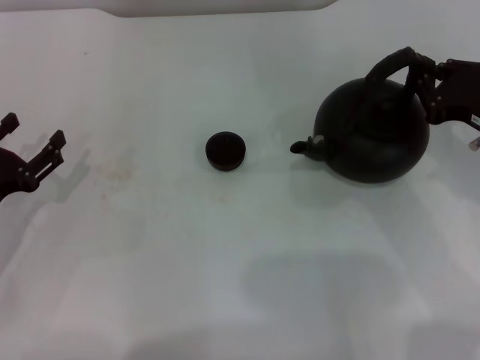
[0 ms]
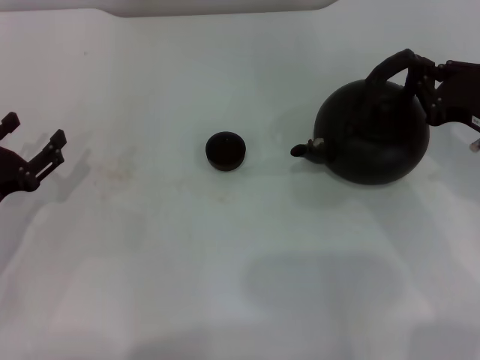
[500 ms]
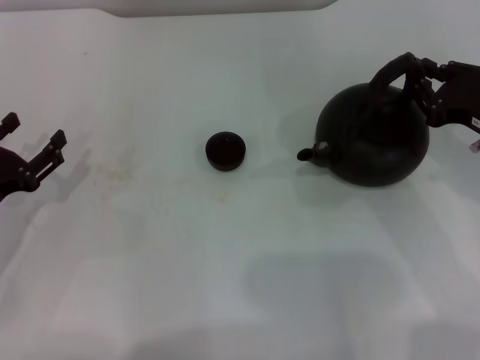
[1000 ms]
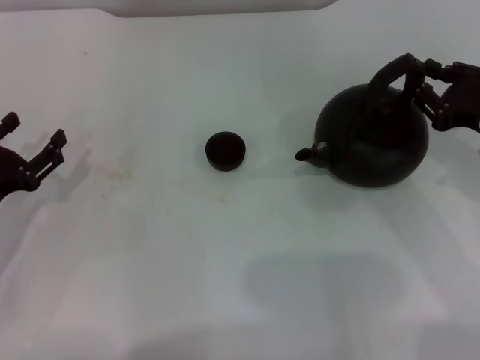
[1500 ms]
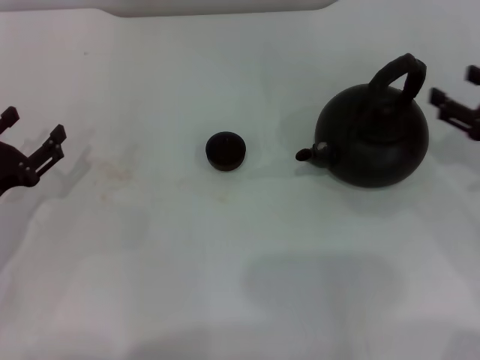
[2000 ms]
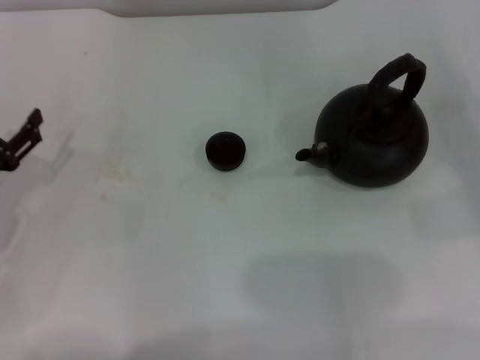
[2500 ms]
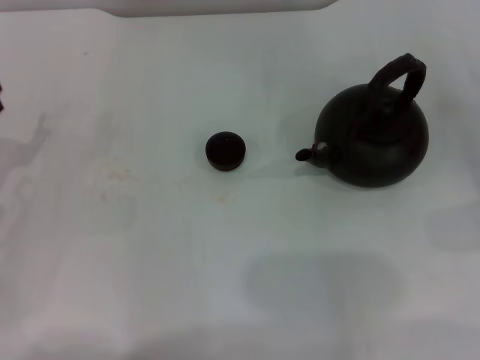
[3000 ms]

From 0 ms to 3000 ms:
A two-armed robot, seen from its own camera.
Task of the whole recording: Grasp the handle of the teapot with one hand and pour tea into the teacup.
From 0 ms to 1500 ms: Both grippers stay about where they are.
From 1500 ms to 3000 ms: The right gripper travels to the right by approximately 10 cm, and opens.

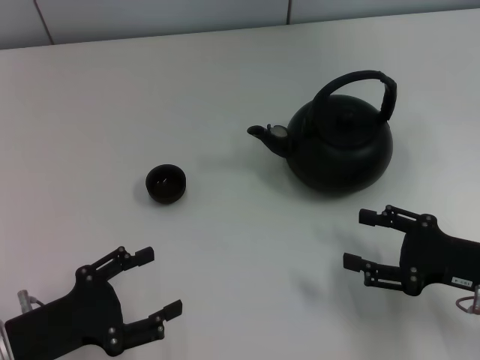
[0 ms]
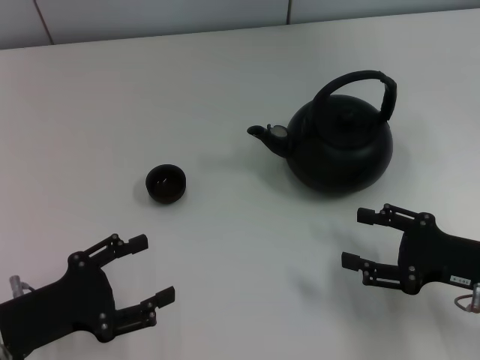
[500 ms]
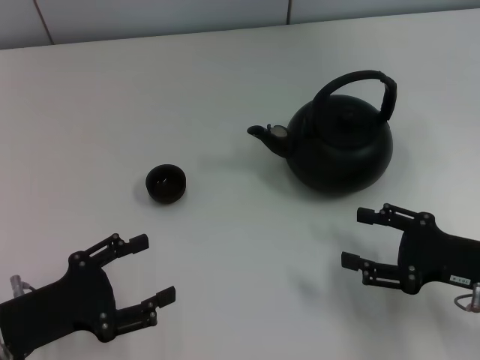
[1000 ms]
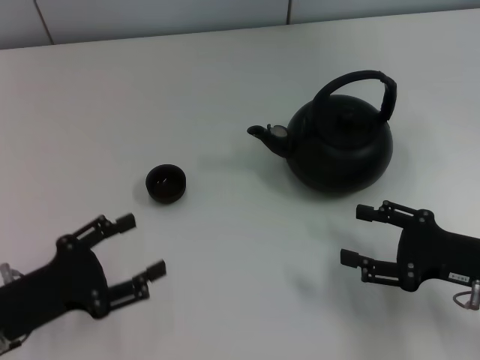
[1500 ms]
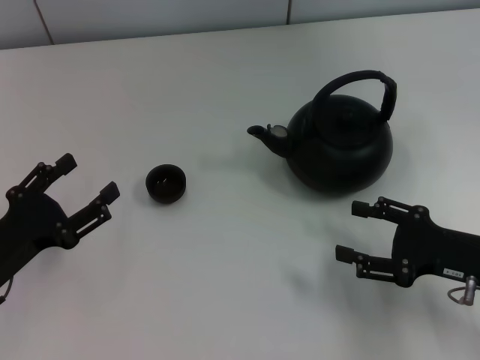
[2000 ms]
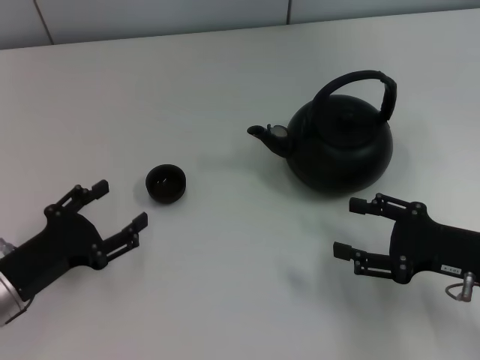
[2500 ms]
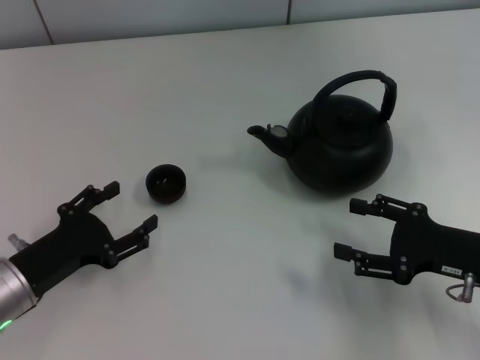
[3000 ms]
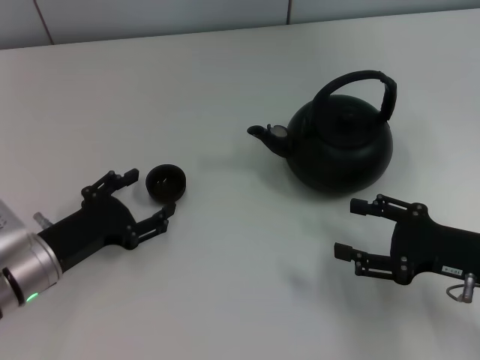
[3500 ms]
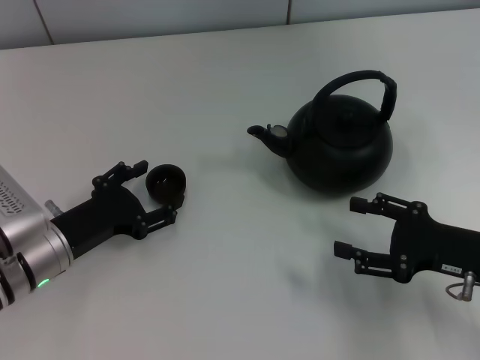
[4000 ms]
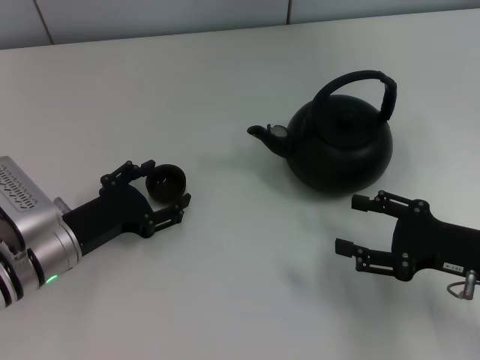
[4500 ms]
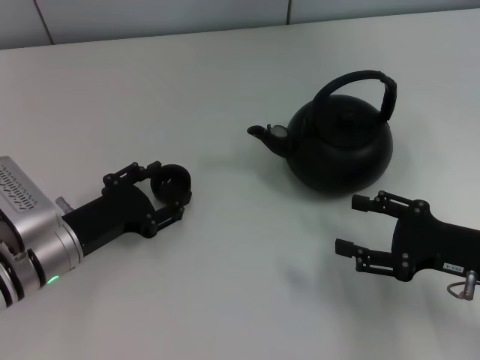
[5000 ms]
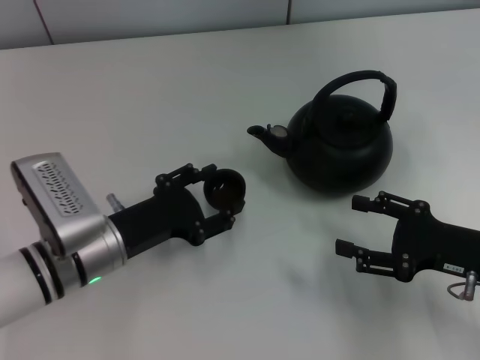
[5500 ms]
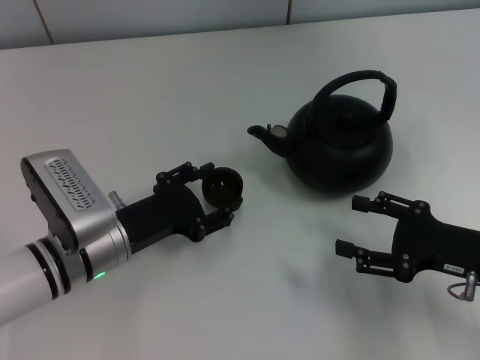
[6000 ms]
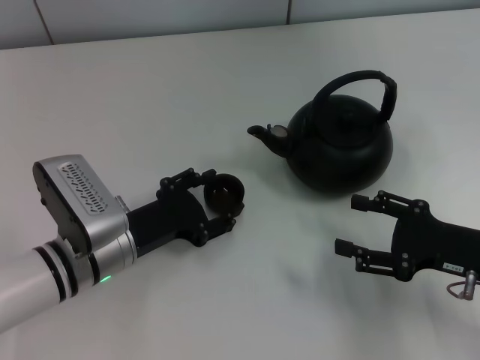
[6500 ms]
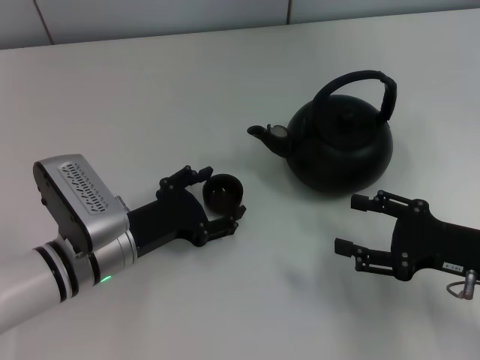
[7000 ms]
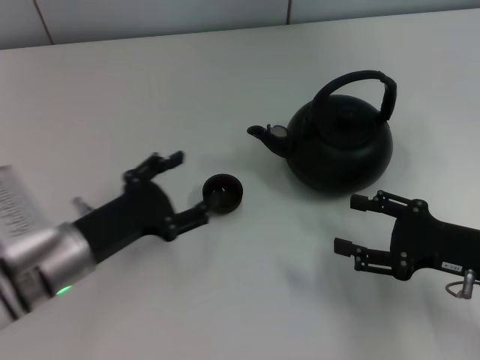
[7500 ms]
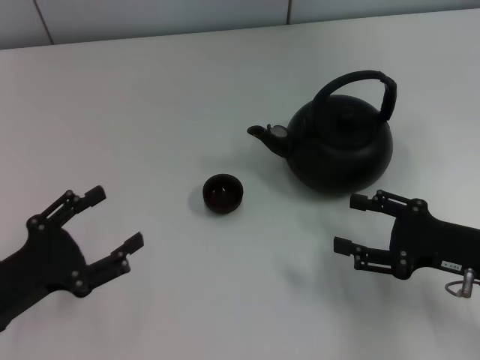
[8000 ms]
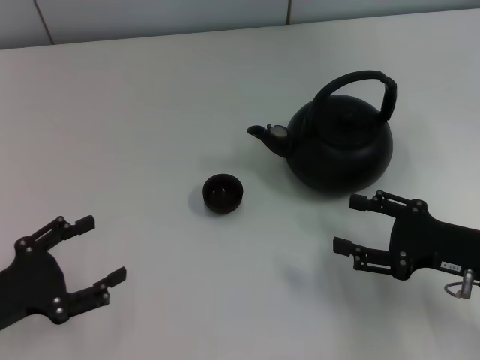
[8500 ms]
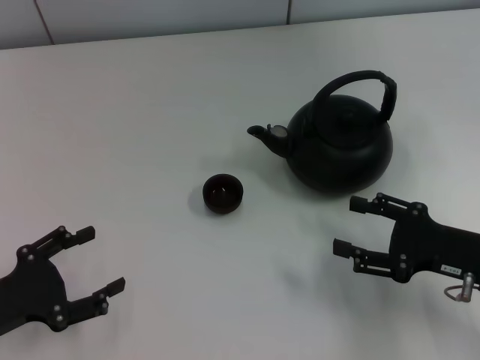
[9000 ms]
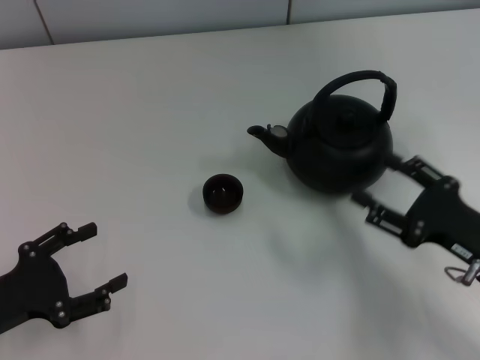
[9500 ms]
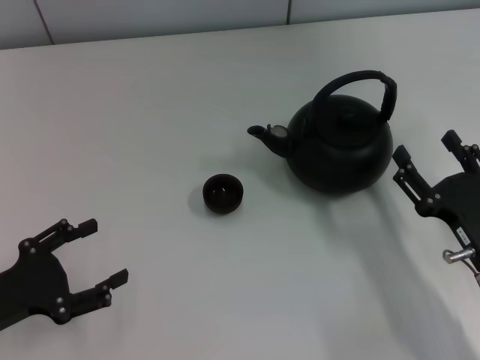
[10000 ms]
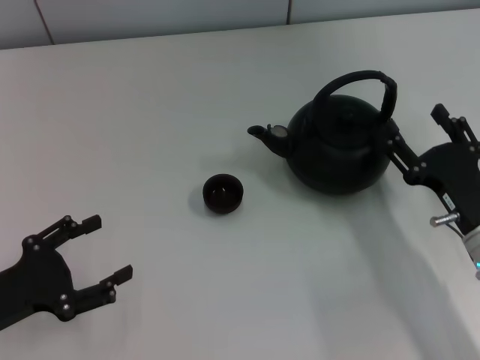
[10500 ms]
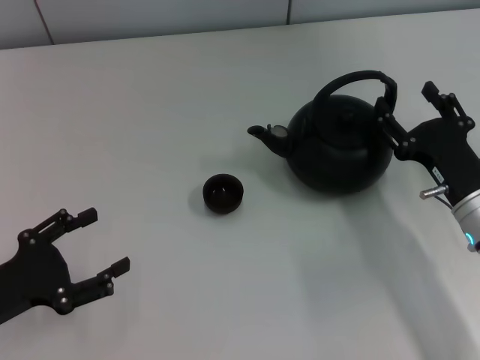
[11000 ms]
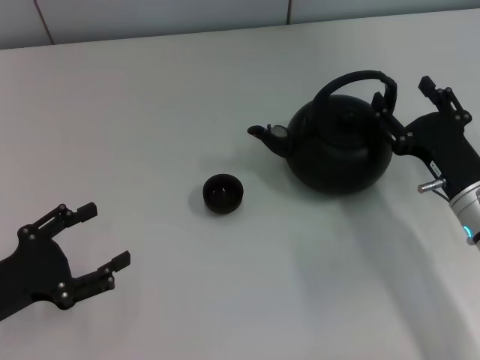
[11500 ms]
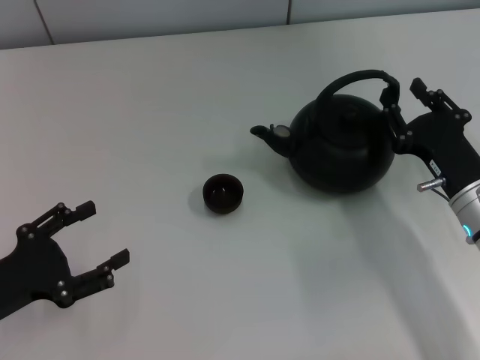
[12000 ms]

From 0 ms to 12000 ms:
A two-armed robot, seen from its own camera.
Task of the whole recording: Grasp the handle of the teapot with one hand and pour tea into the teacup.
Step, from 0 ms to 5000 ms: Pick up the teacup with the left gripper.
Step, from 5500 ms to 8000 ms: Place the teacup in the center of view with the left gripper.
From 0 ms to 2000 ms: The left gripper closes its fingers.
From 2000 ms to 4000 ms: The left gripper goes about 10 cm to the right and forward, and closes its fingers.
From 4000 ms to 6000 ms: The left gripper travels to the right by some 5 cm.
From 6000 ms to 8000 ms: The left gripper travels to the left and backward by some 10 cm, and opens up.
From 8000 ms to 10000 ms: The right gripper ends up roughly 5 cm from where it was.
From 10000 ms to 12000 ms: The right gripper moves forward, about 10 cm.

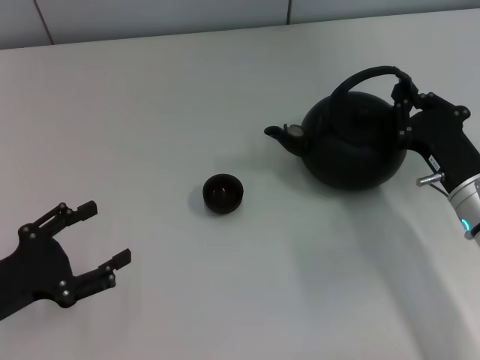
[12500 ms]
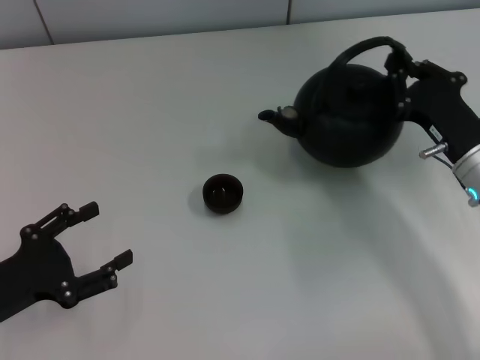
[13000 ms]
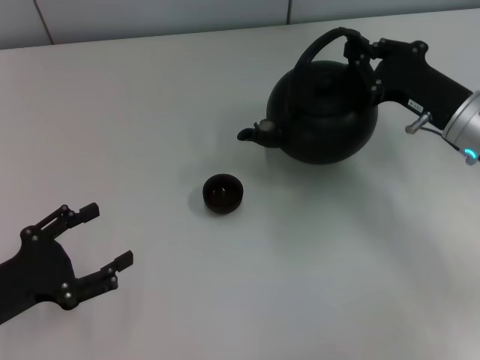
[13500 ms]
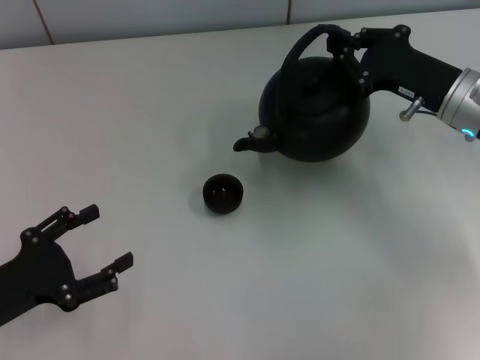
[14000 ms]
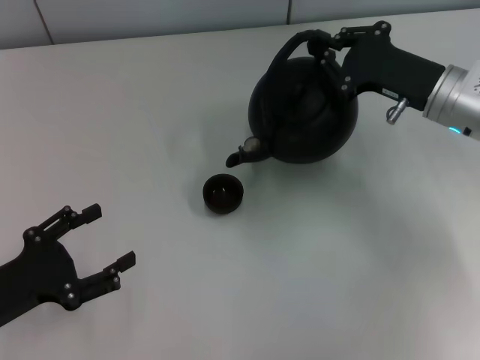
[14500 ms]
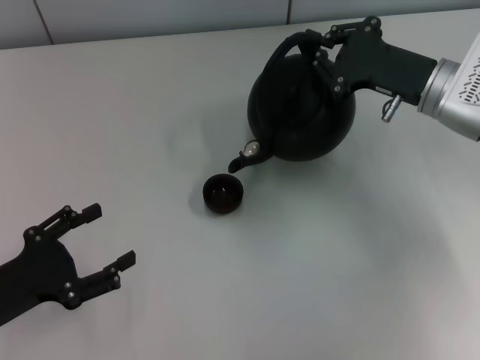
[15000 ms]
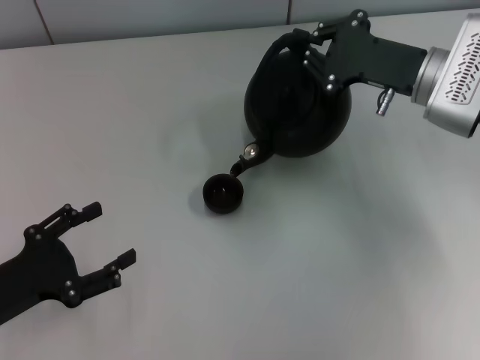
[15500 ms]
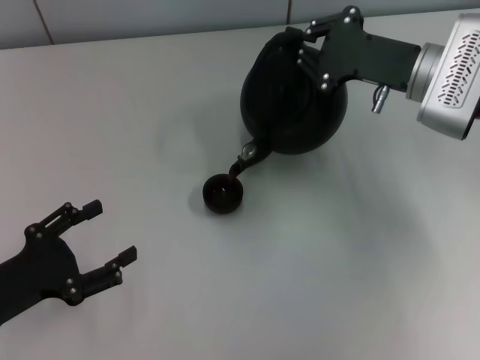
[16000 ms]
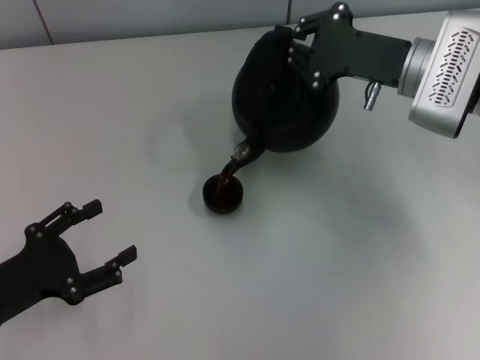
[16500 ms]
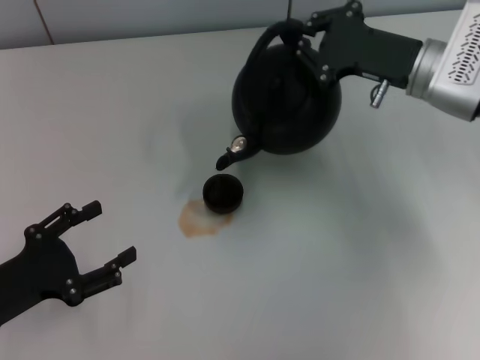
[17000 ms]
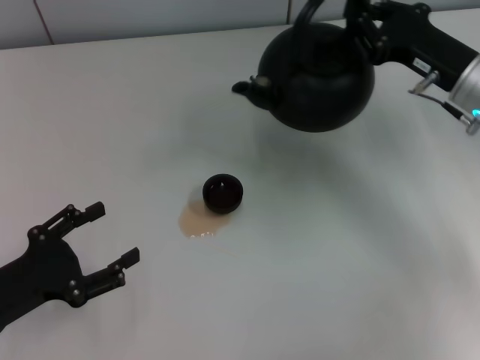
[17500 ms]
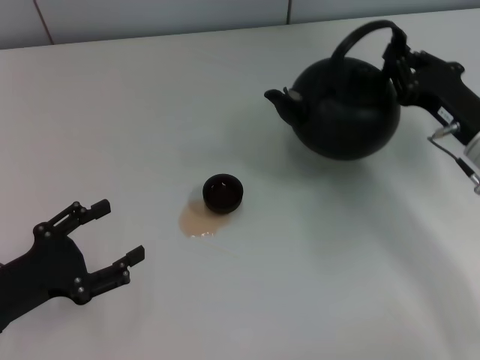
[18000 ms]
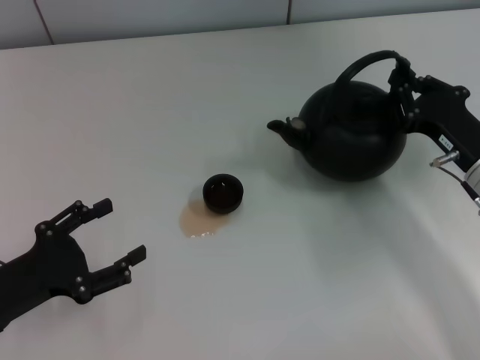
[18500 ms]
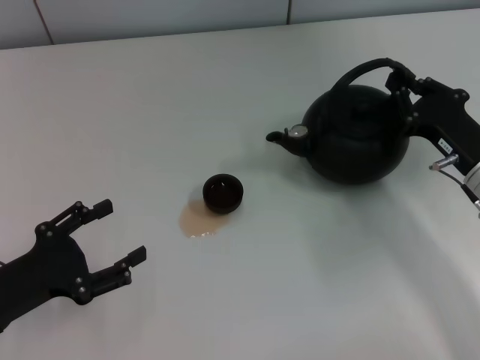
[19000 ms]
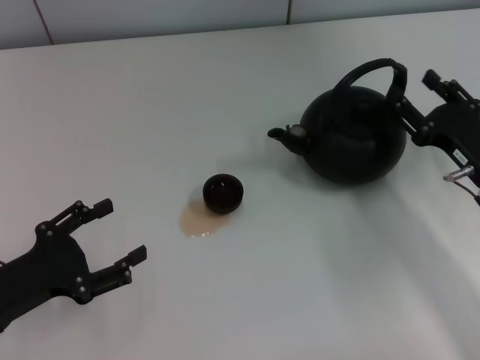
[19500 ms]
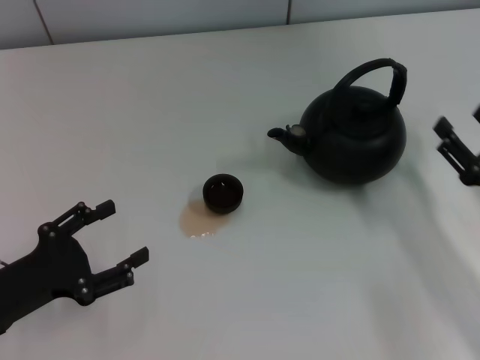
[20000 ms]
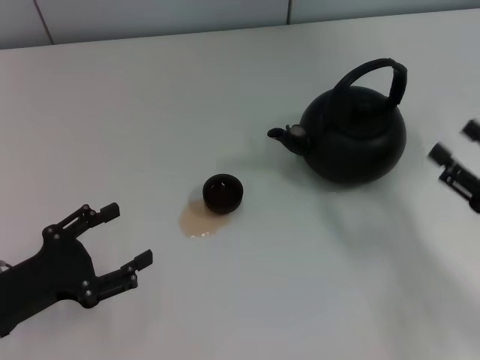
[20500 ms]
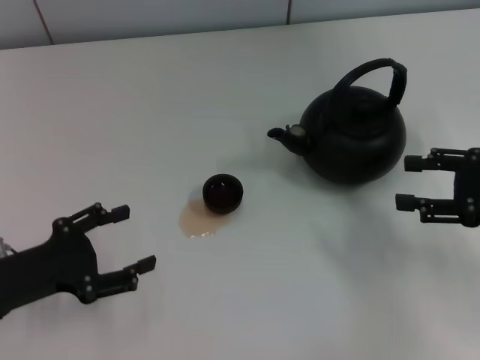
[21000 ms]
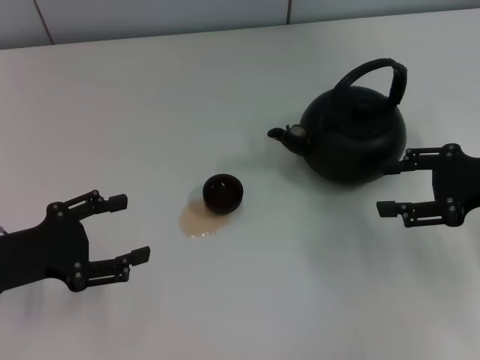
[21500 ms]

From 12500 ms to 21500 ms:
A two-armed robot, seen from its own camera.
Task of the whole recording: Grasp the handle of the teapot with one hand and pour tea into the teacup.
Step, from 18000 ms to 19500 ms: Put down the teapot with the right gripper.
From 12500 ms to 14500 ms: The right gripper is displaced forward and upward by approximately 10 cm.
From 17000 ms to 19500 ms: The right gripper moves backward, downward and to the right, roughly 15 cm, and opens up.
From 19500 ms to 21500 ms: The right gripper heads upward, covering approximately 5 cm, and goes backward and returns, some 5 cm each way. Meanwhile the left gripper ends up roughly 5 cm from where it was.

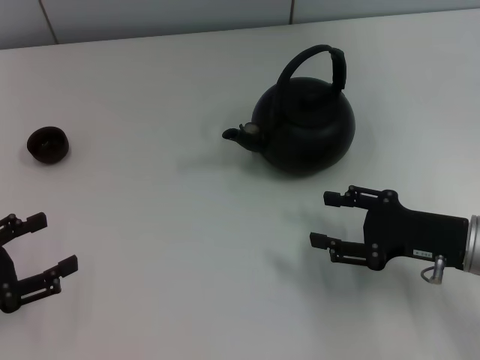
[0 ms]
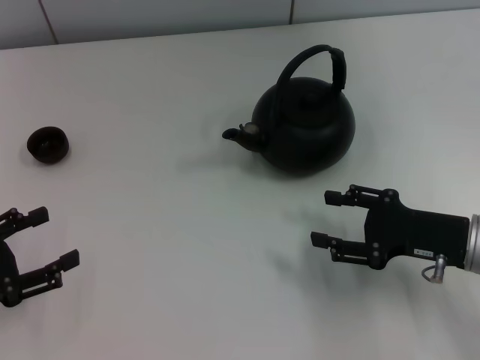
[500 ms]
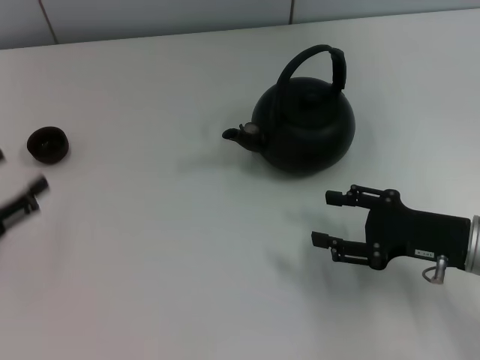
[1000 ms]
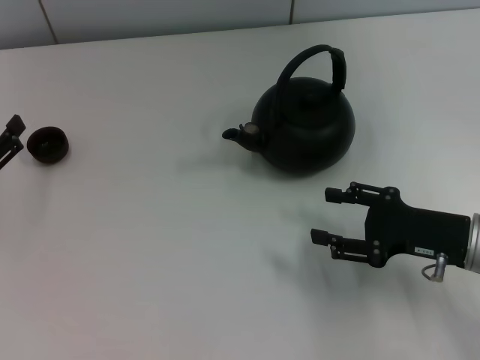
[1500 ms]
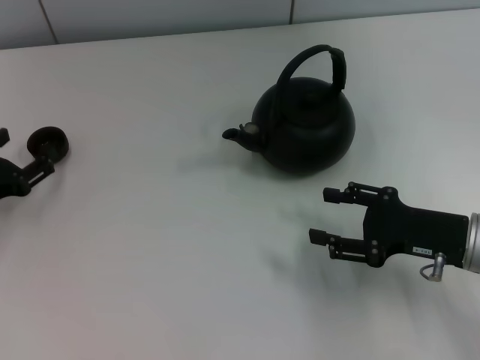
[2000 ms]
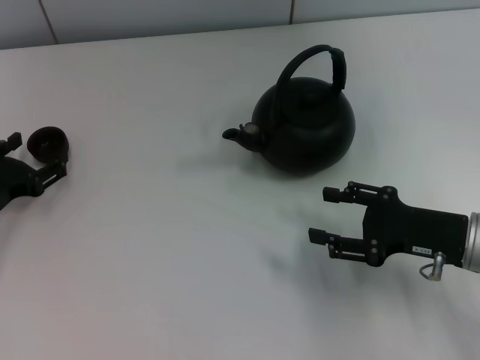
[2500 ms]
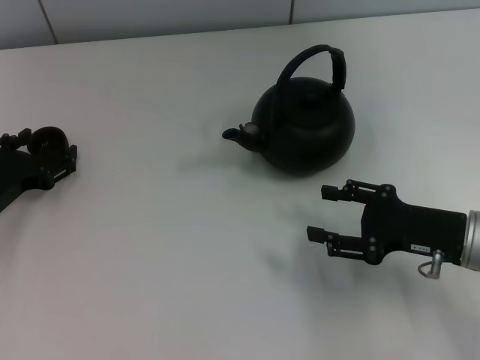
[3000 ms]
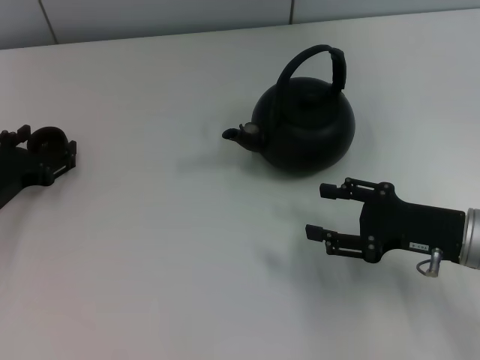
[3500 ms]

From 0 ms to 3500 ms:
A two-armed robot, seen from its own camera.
Task of the whole recording: Grasp the handle of the teapot with one hand and pour tea into the teacup.
From 0 ms to 2000 ms: The left gripper moves forward, roughly 10 cm, and closes its fingers.
From 2000 ms to 3500 ms: The left gripper closes up.
